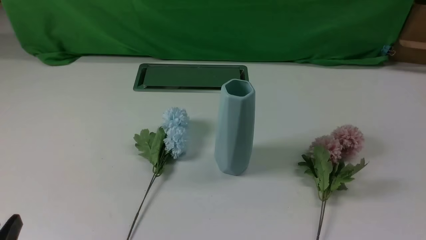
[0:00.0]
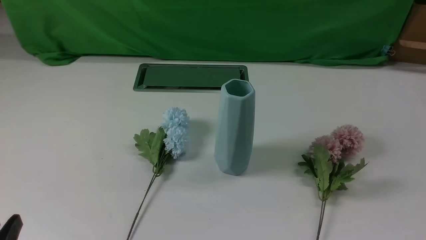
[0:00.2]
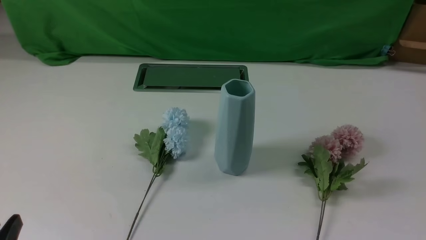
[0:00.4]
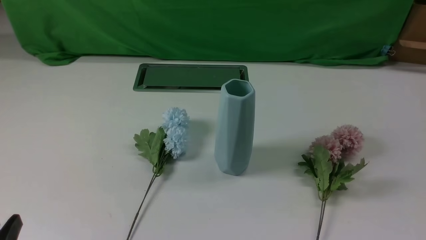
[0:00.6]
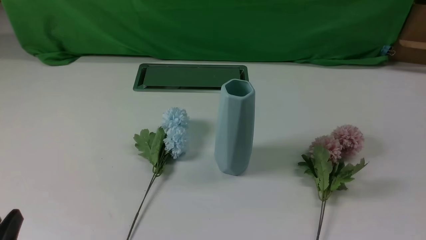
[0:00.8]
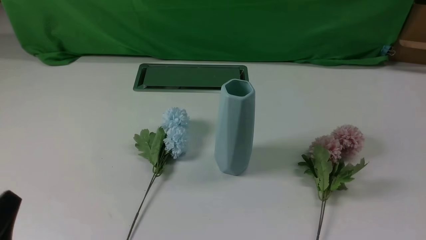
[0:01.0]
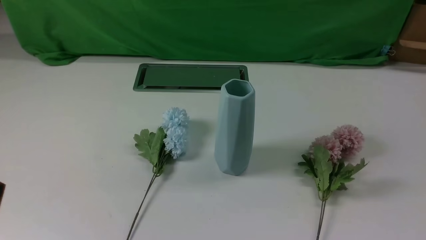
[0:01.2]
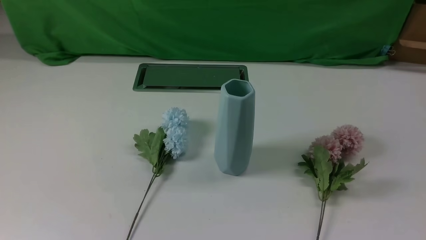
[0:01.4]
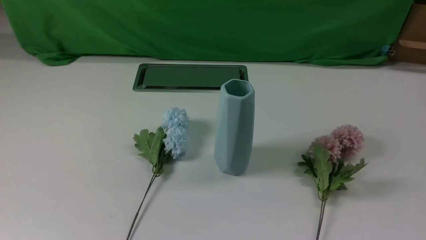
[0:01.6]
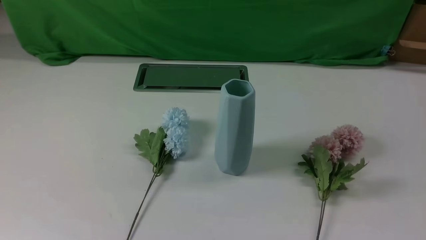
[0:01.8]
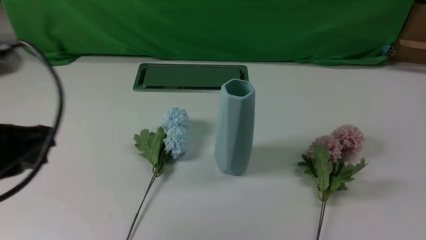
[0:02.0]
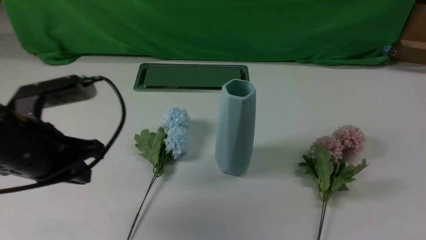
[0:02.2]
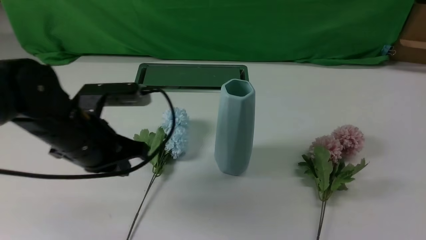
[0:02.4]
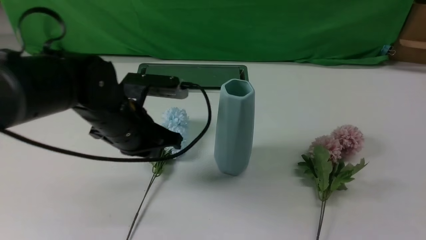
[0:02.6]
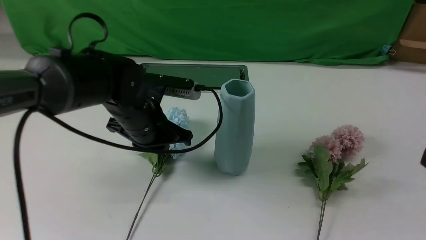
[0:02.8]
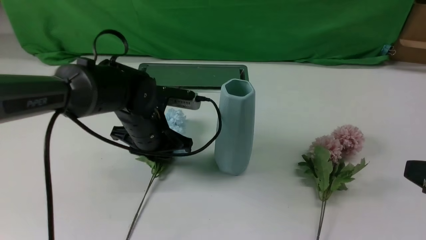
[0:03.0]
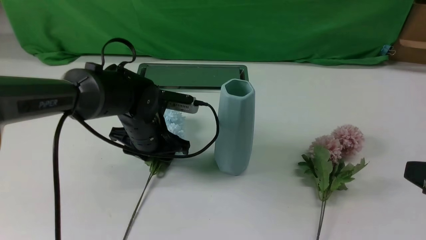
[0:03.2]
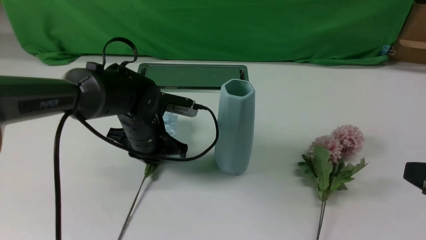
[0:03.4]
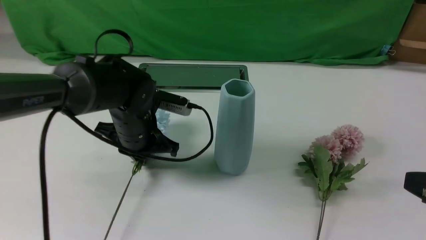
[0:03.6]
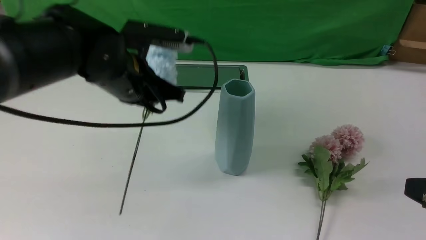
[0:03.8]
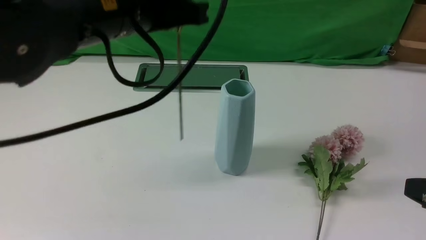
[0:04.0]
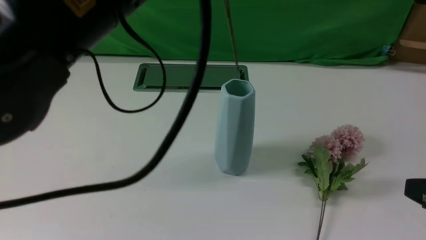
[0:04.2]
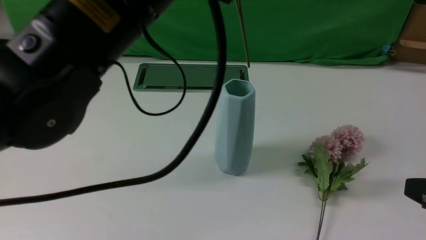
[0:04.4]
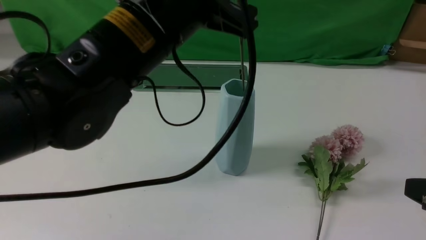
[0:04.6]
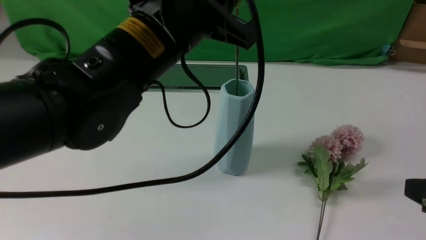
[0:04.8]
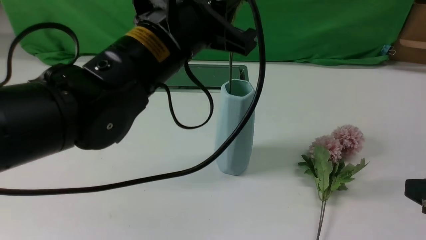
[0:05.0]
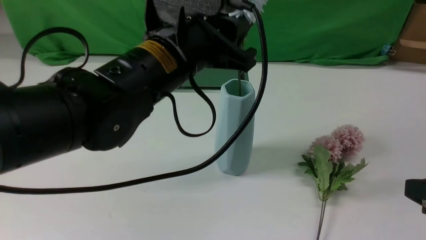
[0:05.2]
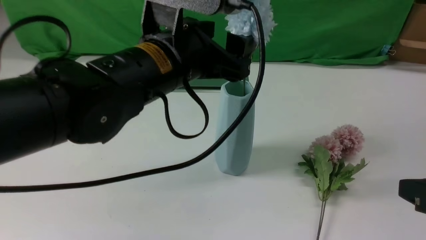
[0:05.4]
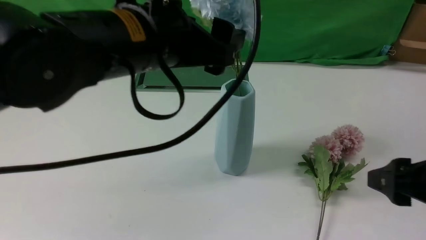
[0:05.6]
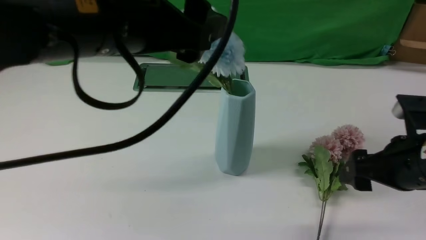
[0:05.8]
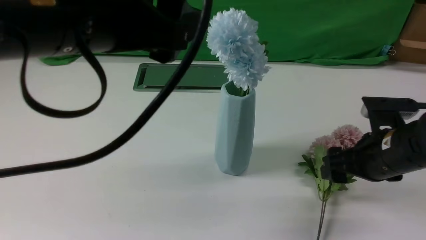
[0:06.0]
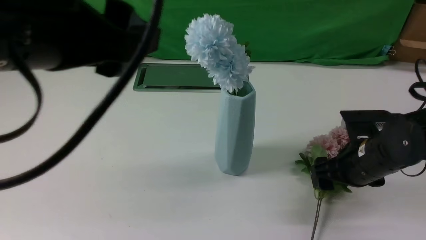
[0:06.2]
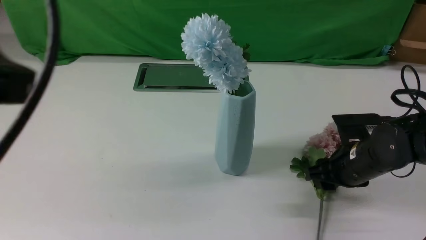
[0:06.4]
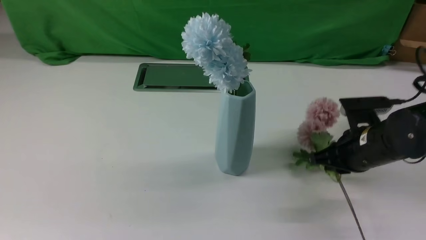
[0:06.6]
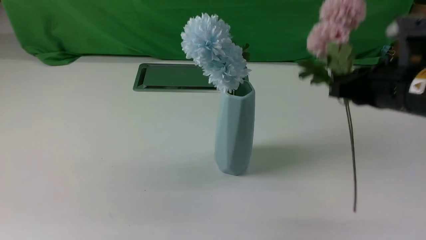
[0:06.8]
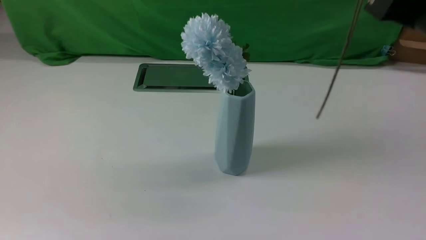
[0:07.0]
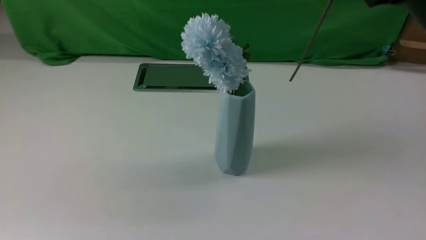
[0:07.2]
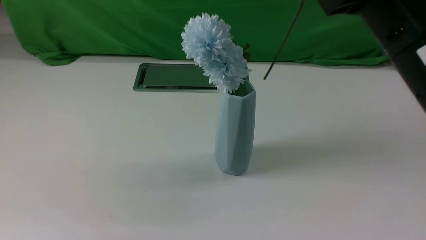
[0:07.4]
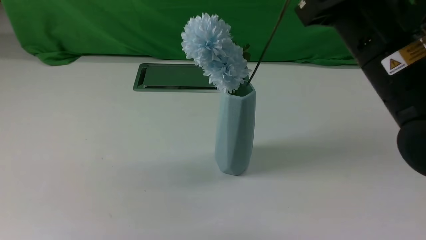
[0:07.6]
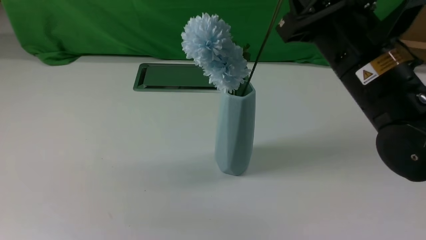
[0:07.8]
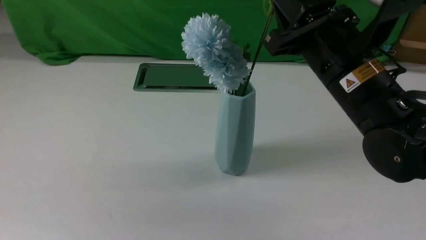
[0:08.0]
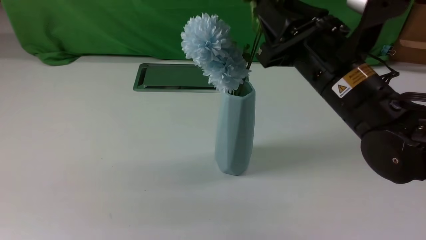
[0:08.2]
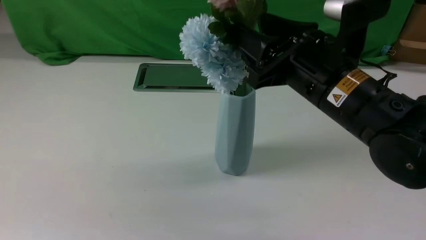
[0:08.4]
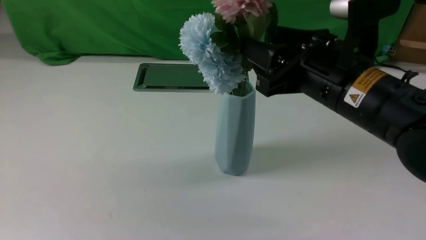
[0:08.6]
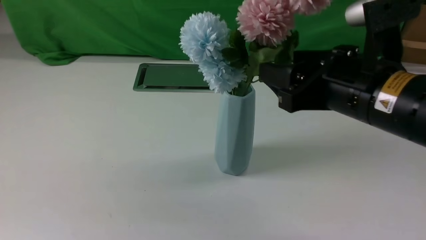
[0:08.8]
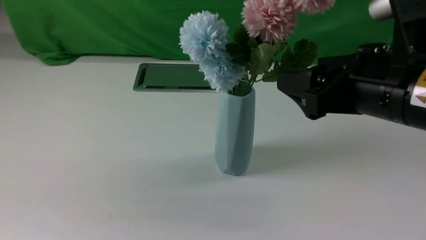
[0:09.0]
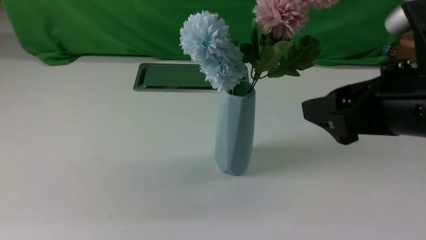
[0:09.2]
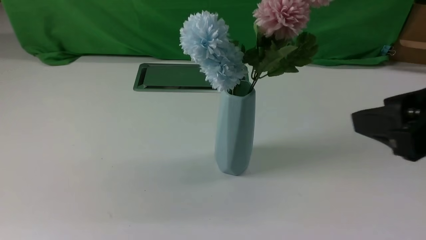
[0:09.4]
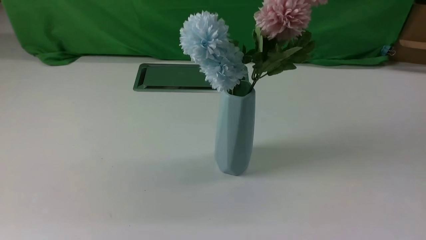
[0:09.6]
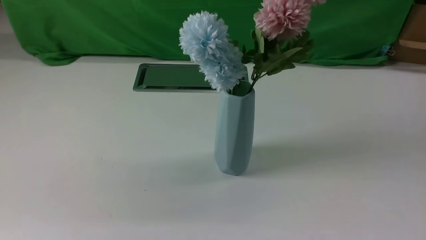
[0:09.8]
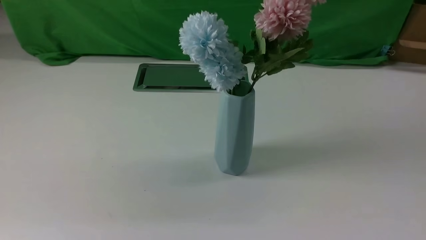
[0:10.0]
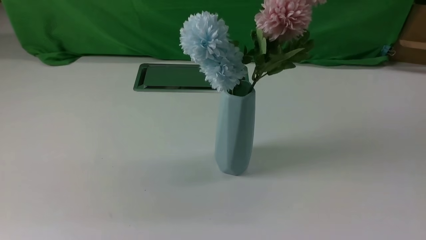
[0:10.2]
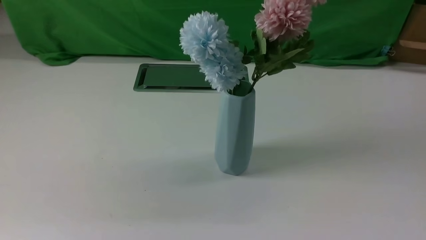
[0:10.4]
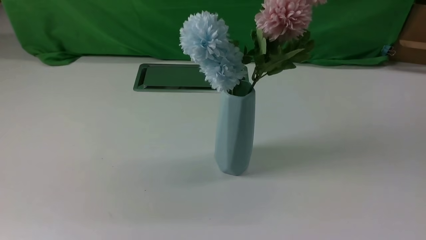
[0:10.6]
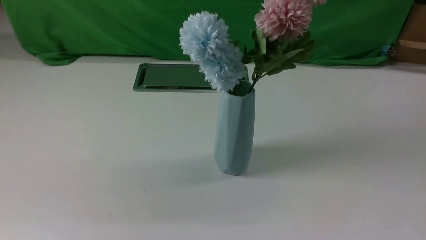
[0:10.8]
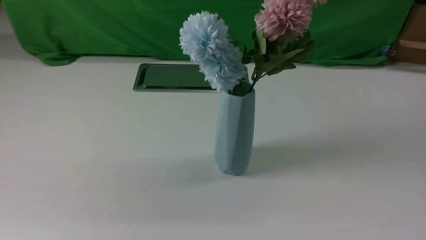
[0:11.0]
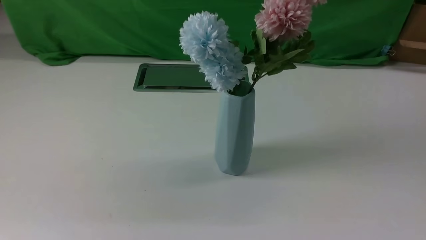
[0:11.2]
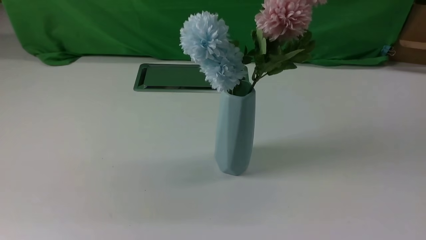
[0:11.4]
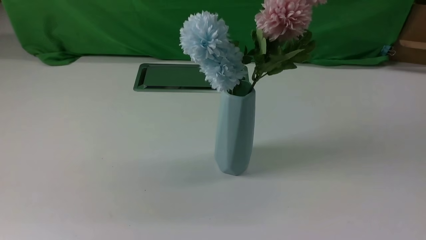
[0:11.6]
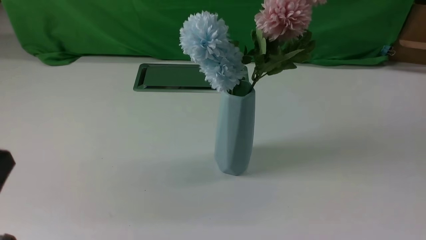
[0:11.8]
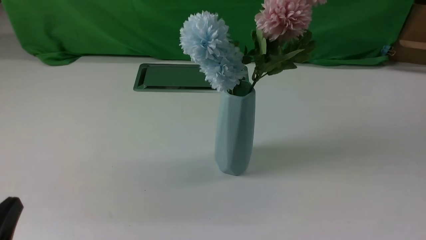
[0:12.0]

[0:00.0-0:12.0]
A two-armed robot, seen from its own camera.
Task of the whole recording: insert the flowers into the vase on the white table.
Step, 0:00.0 to 0:03.2: use the left arm to grab a bunch of fresh flowers.
Step, 0:03.4 to 0:05.8: use the left arm to insert the flowers into the vase.
Step, 0:06.0 to 0:06.4: use the right arm to grab a bunch of fresh flowers.
Step, 0:06.6 to 0:08.8: use the right arm to insert the flowers into the vase.
0:01.6 to 0:03.0: The left gripper moves forward, to the right and downward, approximately 35 cm. Meanwhile the right gripper shifts some 10 cm upward and forward.
0:03.0 to 0:04.4: The left gripper heads upward and backward, covering some 25 cm, and closes up.
0:04.4 to 0:06.0: The right gripper goes roughly 15 cm forward and downward, and opens, while the left gripper moves about 5 cm, and opens.
0:06.0 to 0:07.6: The left gripper shifts approximately 20 cm backward and to the left, and closes up, while the right gripper moves up and down over some 25 cm, changing direction 2 times, and closes its fingers.
0:07.6 to 0:09.0: The right gripper moves backward, about 5 cm, and opens its fingers.
0:09.0 to 0:10.4: The right gripper goes about 30 cm backward and to the right, and closes.
0:10.4 to 0:12.0: The left gripper goes about 20 cm downward.
